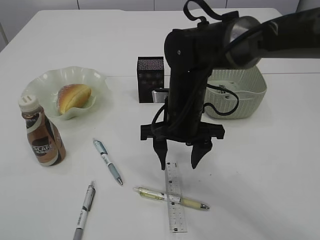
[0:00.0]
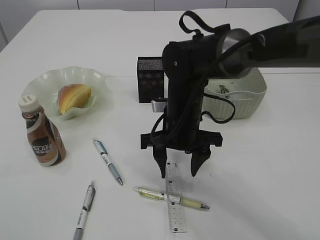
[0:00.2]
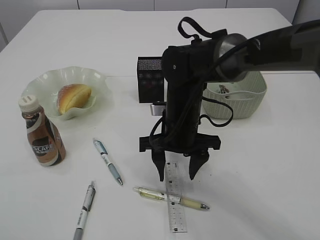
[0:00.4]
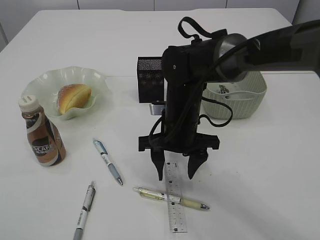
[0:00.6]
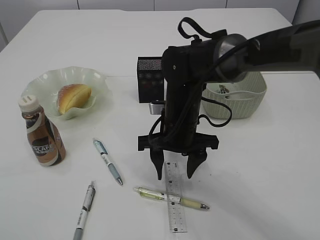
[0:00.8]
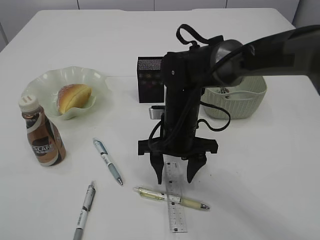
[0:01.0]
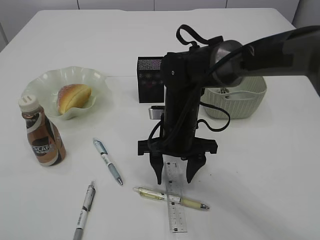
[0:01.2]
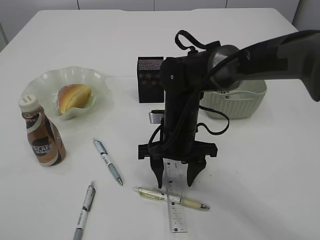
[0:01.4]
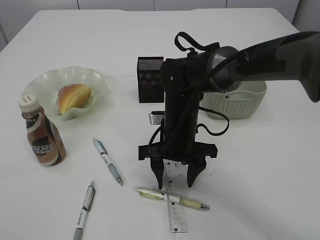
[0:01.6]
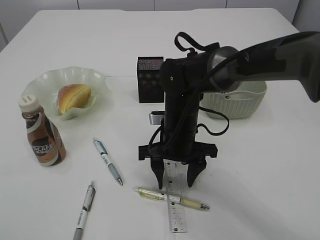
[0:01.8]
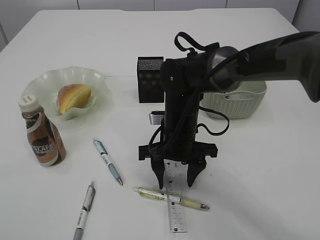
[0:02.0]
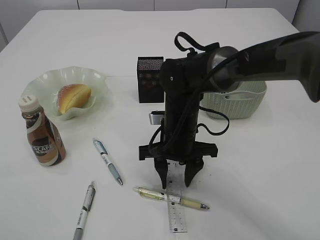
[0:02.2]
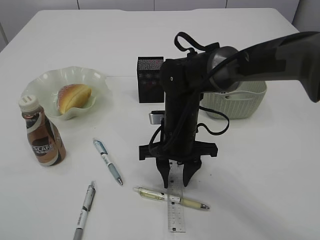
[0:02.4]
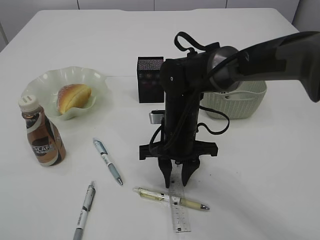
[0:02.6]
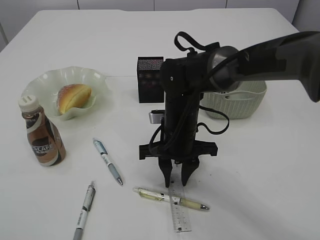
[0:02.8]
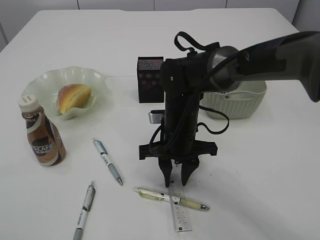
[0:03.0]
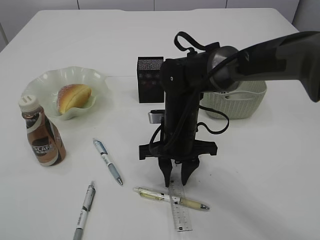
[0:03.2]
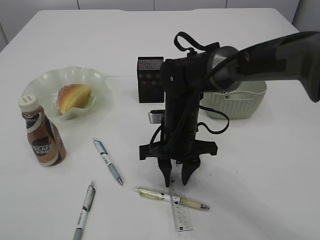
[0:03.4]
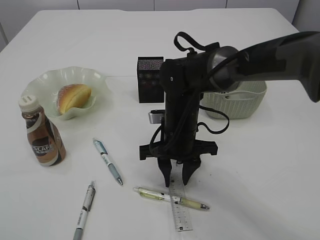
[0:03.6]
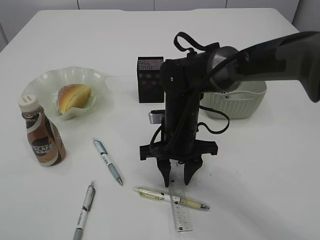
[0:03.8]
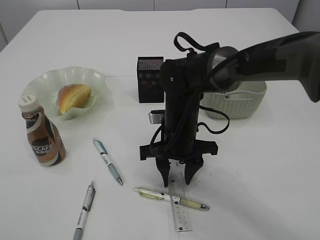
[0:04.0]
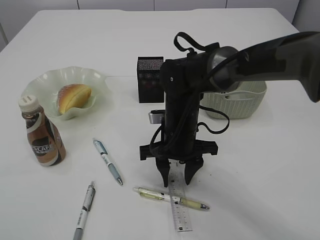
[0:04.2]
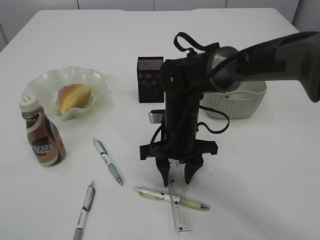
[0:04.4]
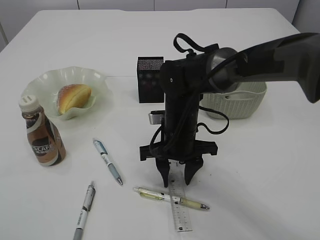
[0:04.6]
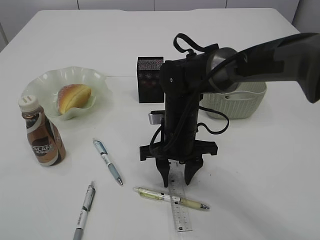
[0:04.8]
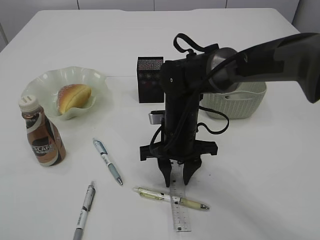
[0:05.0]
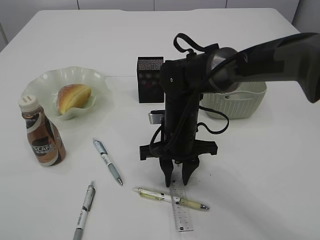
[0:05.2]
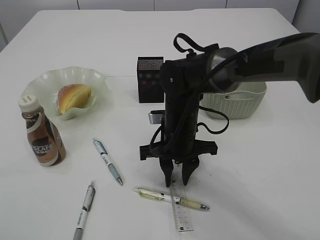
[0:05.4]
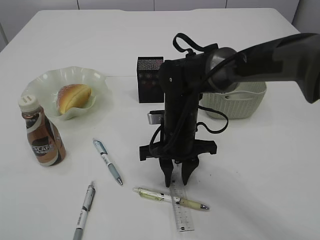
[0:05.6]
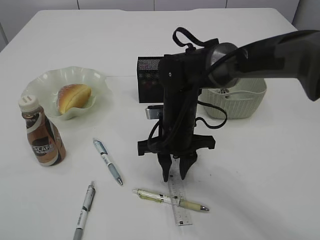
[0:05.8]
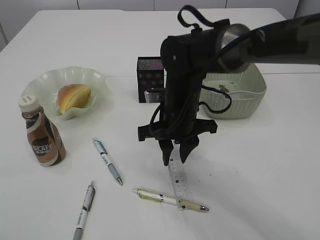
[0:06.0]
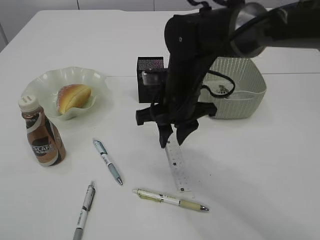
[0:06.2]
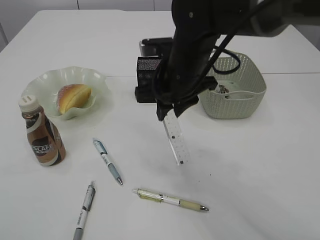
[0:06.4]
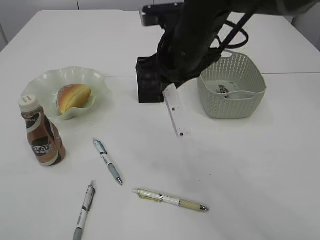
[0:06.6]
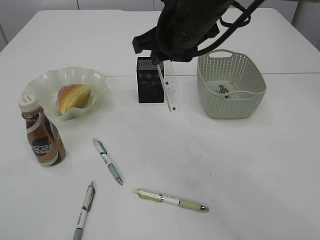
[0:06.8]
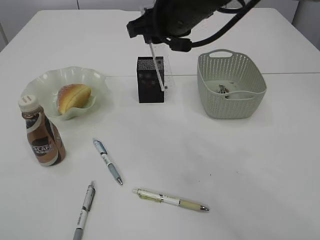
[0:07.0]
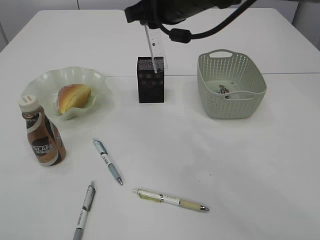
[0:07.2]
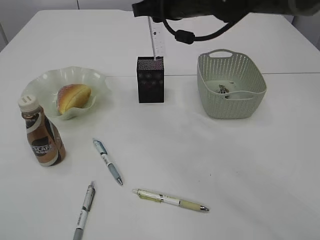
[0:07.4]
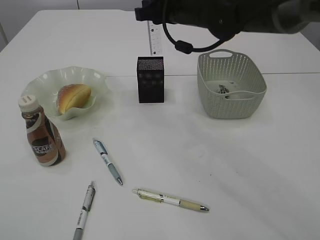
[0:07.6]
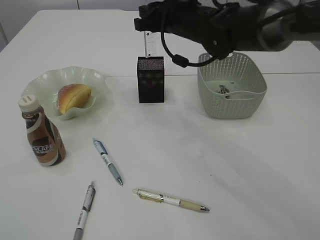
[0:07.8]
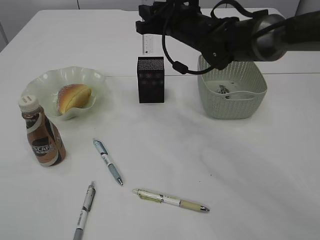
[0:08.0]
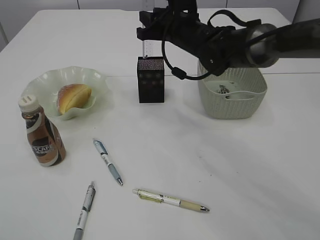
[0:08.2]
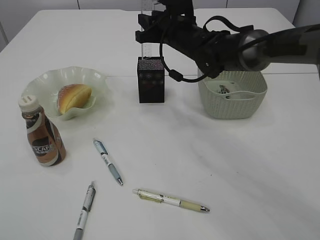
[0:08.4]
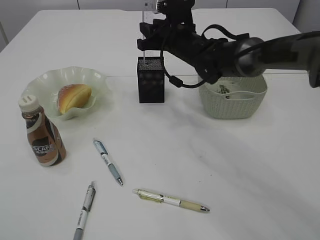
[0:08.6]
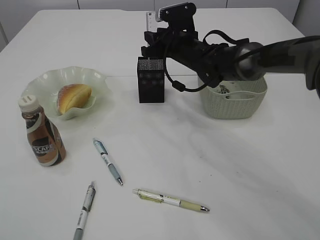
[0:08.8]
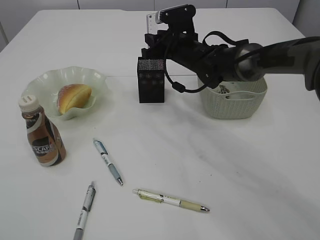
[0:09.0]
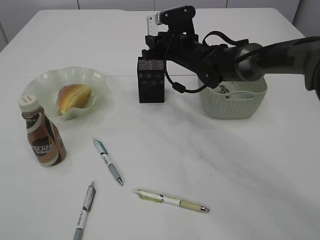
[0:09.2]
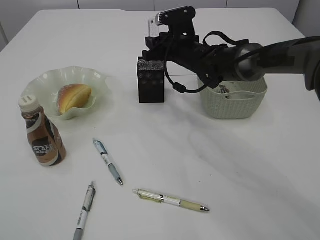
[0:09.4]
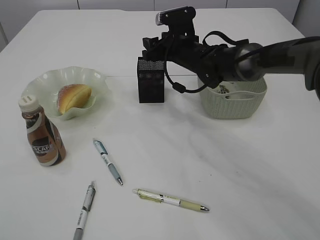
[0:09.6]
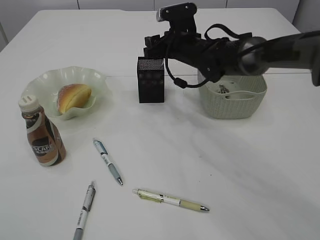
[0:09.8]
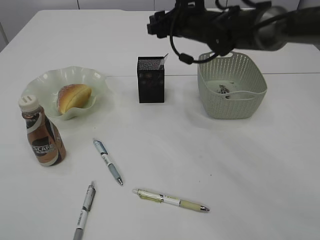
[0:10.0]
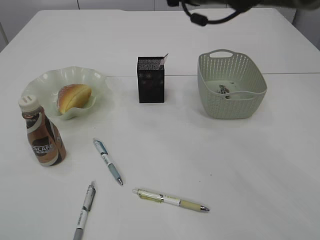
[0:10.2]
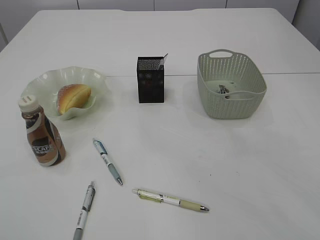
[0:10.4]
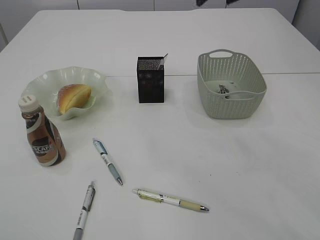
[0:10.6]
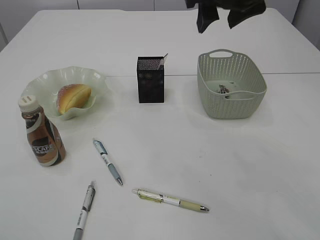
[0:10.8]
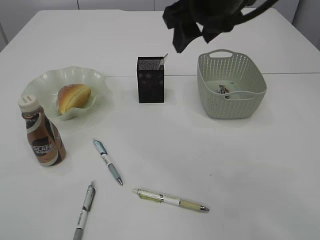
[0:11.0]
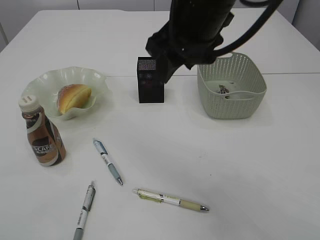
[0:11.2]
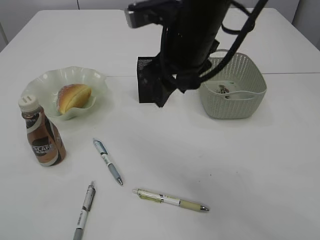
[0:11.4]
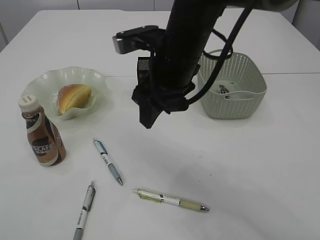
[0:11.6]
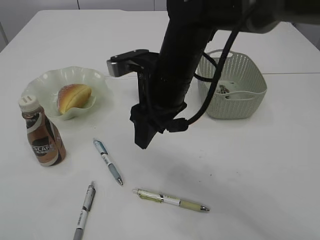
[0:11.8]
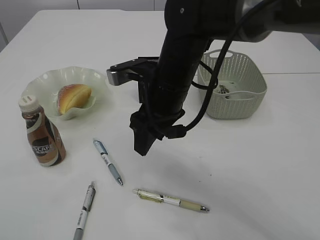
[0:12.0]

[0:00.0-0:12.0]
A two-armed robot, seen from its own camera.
Step, 0:00.0 to 0:06.2: pick up the ruler.
Step, 0:06.4 to 0:09.8: Place the ruler into the pen holder.
0:00.0 to 0:01.6: The grippers stay close to where they were, moving slightly.
0:01.6 to 0:03.0: The right gripper closes its fingers.
0:03.0 to 0:04.4: Neither gripper changes place.
0:04.4 to 0:06.0: The grippers stay close to where they were, moving slightly.
0:06.0 to 0:07.6: The right gripper travels upward and forward by approximately 15 cm.
0:07.6 to 0:09.0: The right gripper moves downward and forward, approximately 15 cm.
0:09.0 to 0:10.4: The right gripper moves upward and backward, approximately 20 cm, and opens up.
0:10.4 to 0:12.0: The right gripper goes approximately 20 cm downward, to the left and backward.

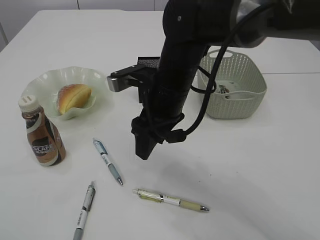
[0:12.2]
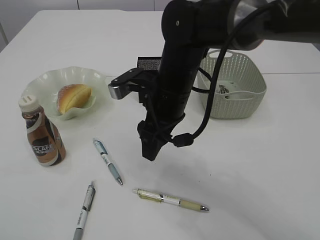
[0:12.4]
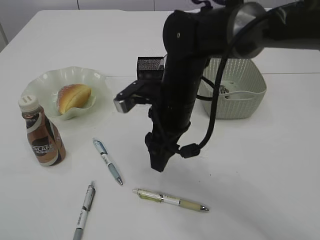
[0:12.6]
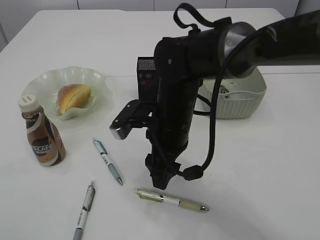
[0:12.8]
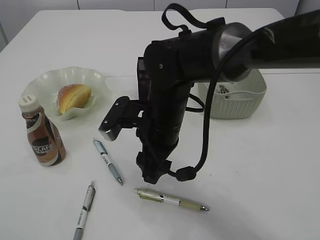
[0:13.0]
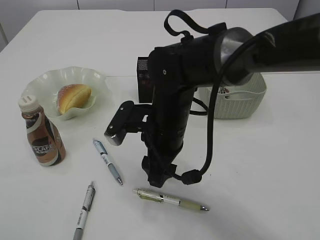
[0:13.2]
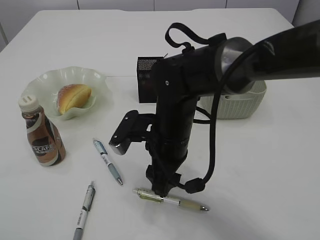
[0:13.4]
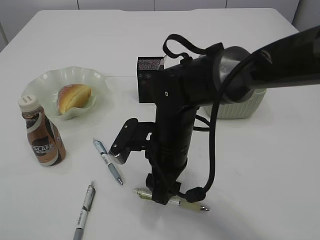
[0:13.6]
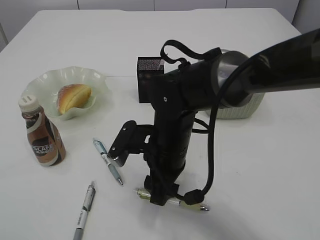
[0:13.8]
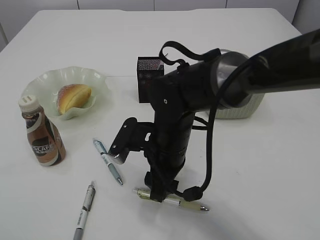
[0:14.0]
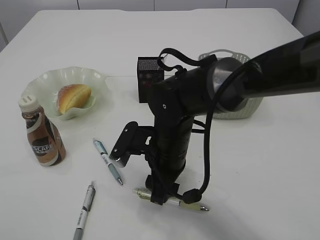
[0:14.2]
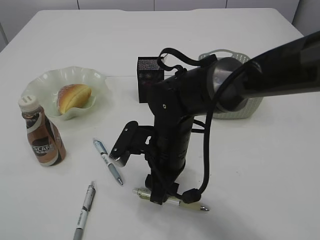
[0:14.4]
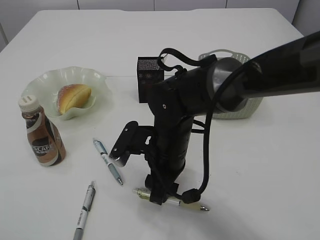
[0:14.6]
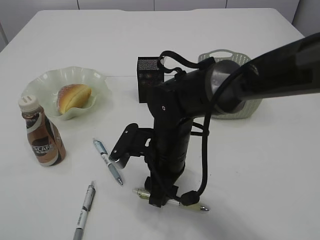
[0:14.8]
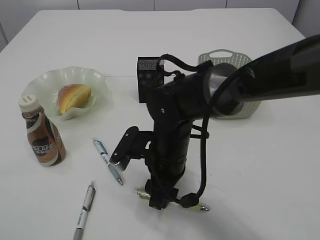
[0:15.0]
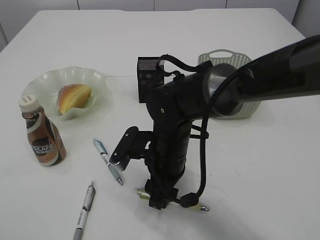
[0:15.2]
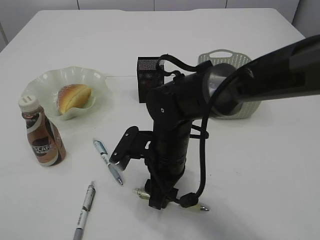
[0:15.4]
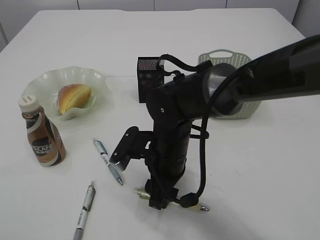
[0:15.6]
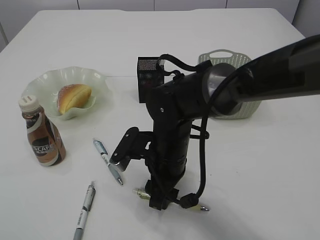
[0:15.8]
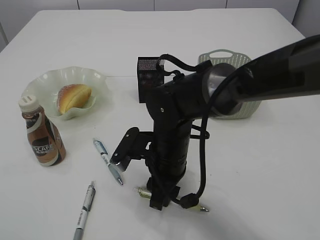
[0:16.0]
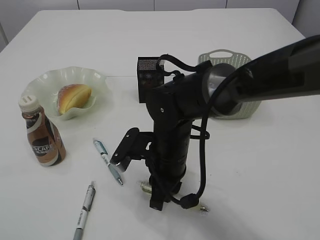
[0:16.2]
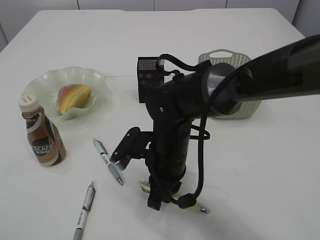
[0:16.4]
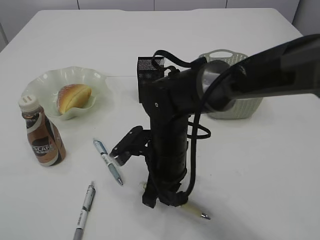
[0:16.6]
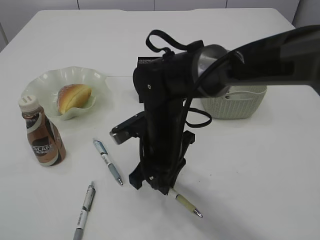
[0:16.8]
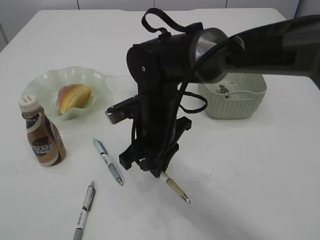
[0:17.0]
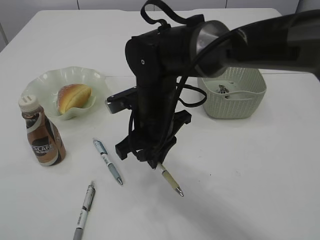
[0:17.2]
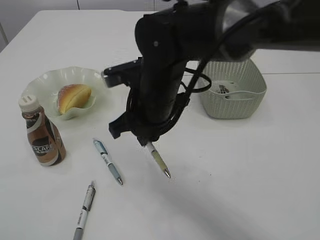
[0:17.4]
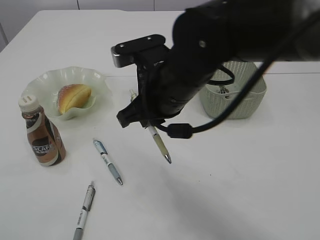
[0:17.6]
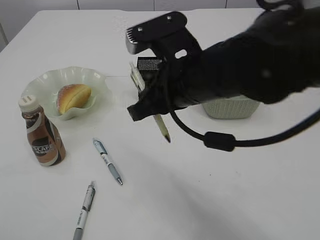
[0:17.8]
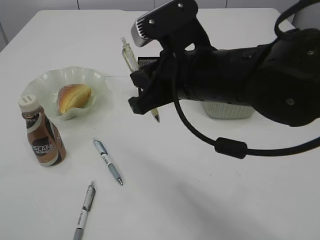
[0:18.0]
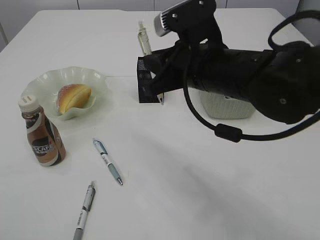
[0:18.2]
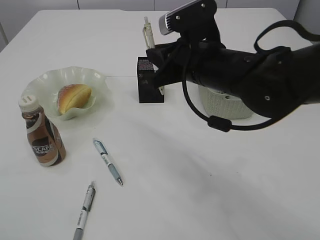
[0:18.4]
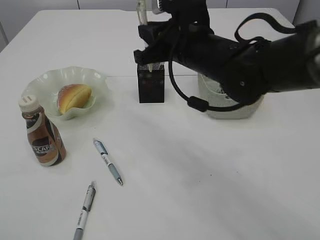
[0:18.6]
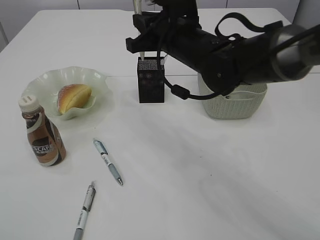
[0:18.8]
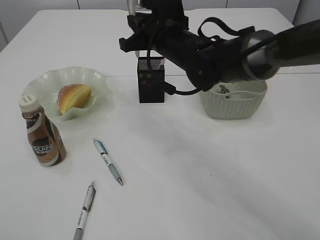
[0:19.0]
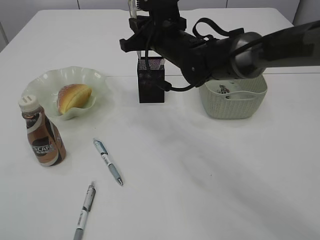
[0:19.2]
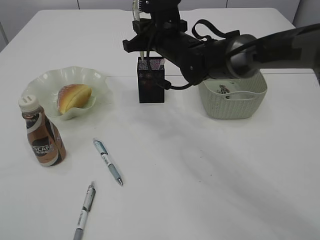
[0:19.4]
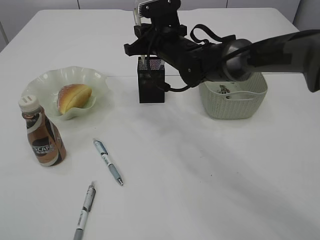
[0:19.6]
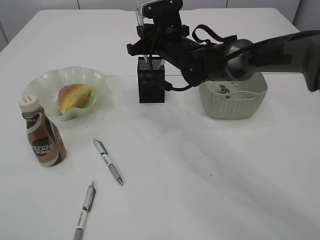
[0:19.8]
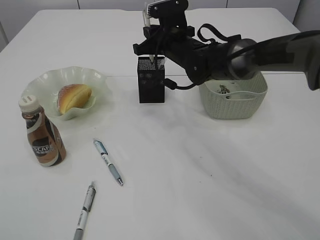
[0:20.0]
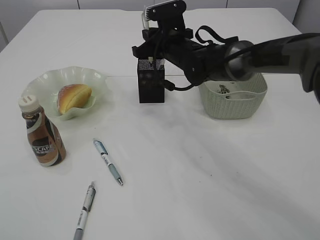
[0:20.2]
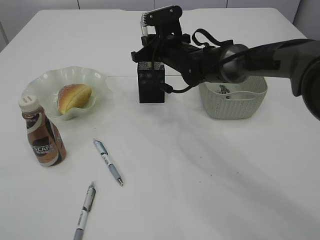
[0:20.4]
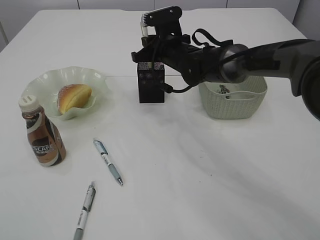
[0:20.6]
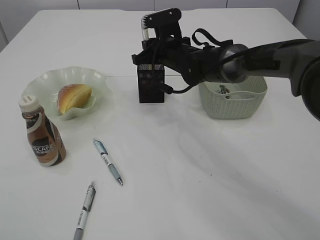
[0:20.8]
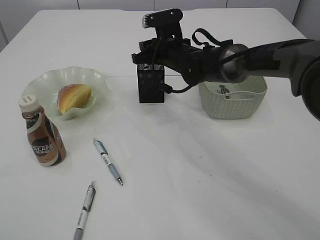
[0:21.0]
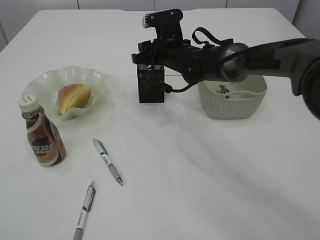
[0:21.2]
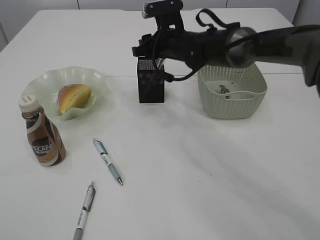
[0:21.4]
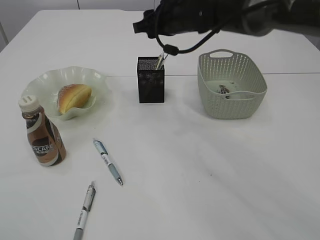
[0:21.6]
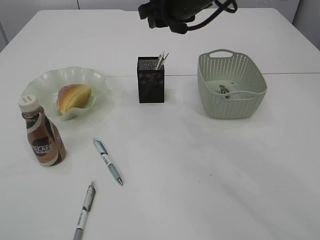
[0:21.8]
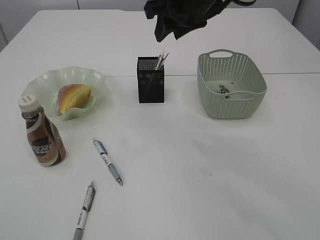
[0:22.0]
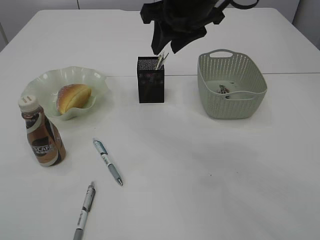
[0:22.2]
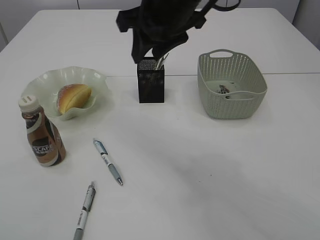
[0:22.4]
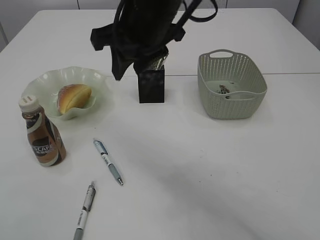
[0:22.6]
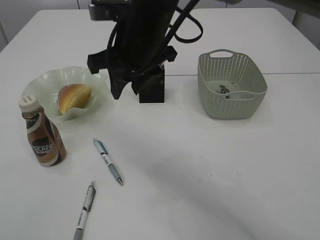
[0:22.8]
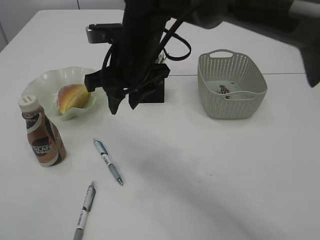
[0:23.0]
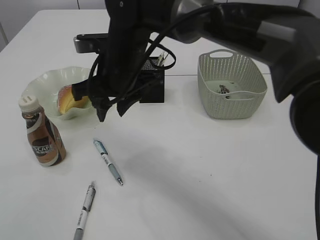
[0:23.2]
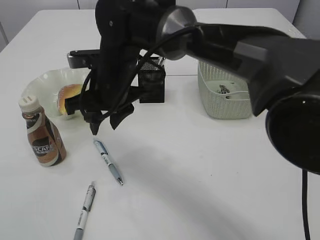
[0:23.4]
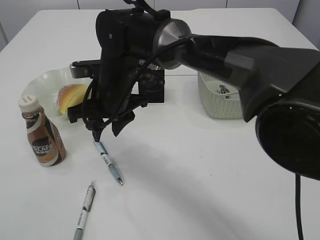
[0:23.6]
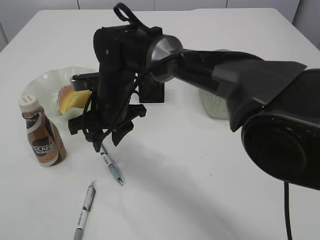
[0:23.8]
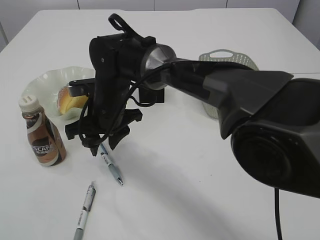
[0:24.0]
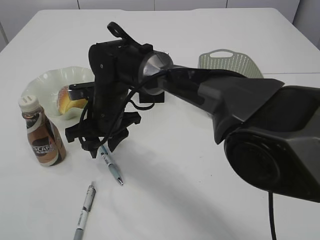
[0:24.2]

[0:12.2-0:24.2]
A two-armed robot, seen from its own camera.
Step, 0:12.2 to 0:17.0: Pick up the pen with right arm.
Step, 0:17.2 to 0:22.0: Place the pen into the pen holder.
0:12.2 to 0:13.8: The right gripper is displaced downward by about 10 cm.
0:13.8 to 0:15.2: The grippers move only a little.
0:15.2 to 0:16.6: The right gripper closes its fingers.
0:16.6 to 0:18.2: The right gripper is displaced upward and to the right by some 15 cm.
0:18.2 to 0:19.8: The right gripper heads forward, covering about 20 cm.
0:19.8 to 0:21.2: The right gripper opens up.
0:21.2 to 0:22.6: The right gripper is displaced upward and backward by approximately 20 cm.
0:22.6 to 0:24.2: The right gripper heads downward and to the left, covering some 20 cm.
